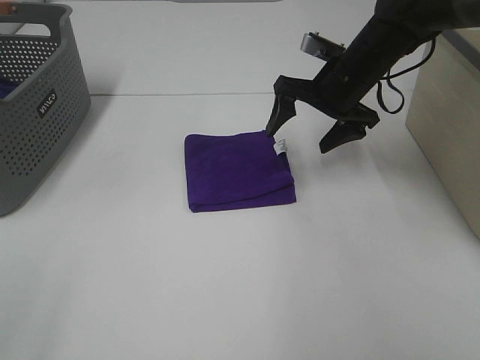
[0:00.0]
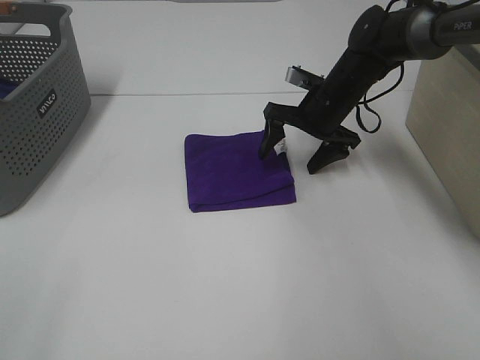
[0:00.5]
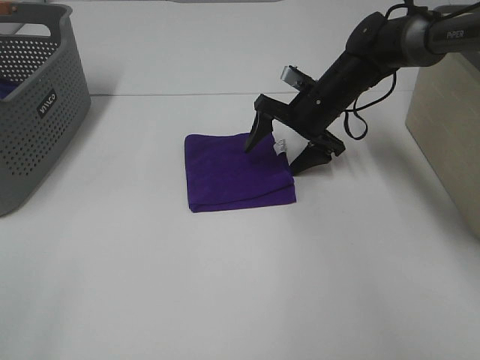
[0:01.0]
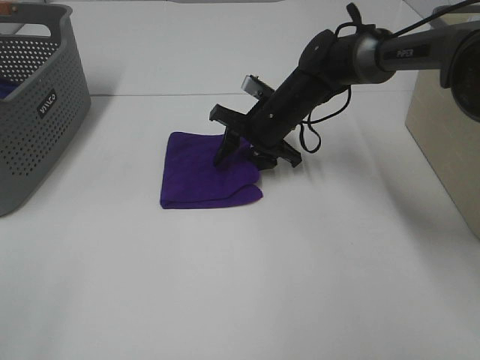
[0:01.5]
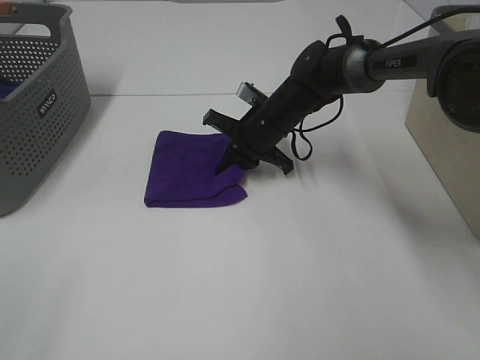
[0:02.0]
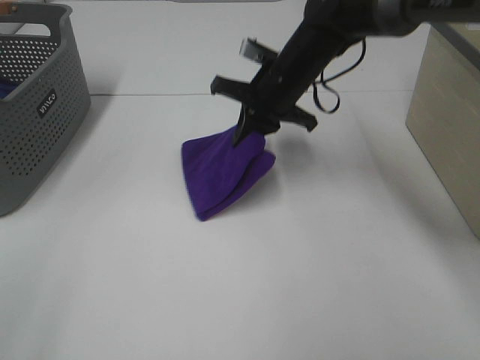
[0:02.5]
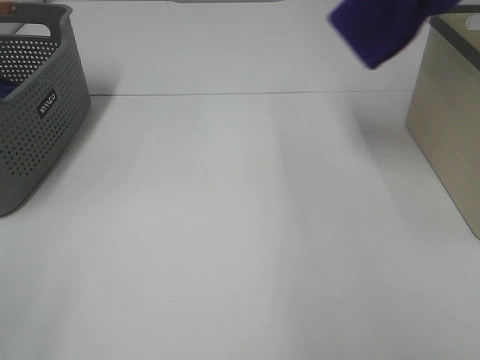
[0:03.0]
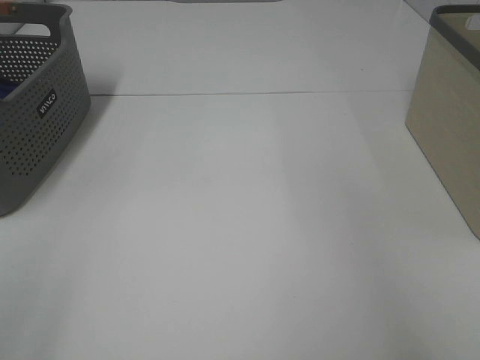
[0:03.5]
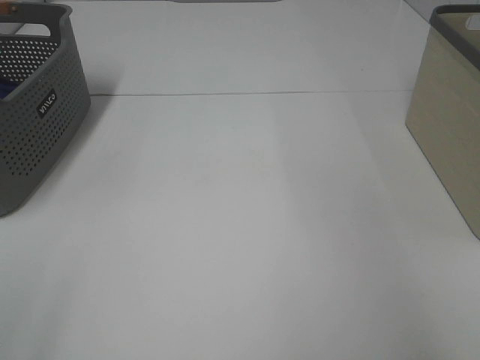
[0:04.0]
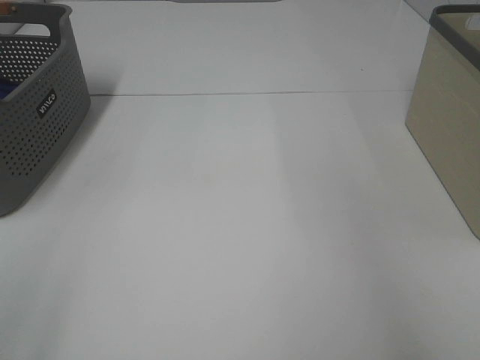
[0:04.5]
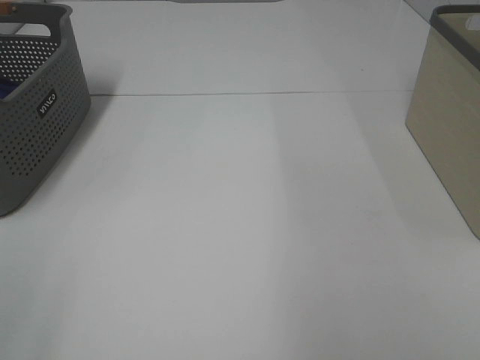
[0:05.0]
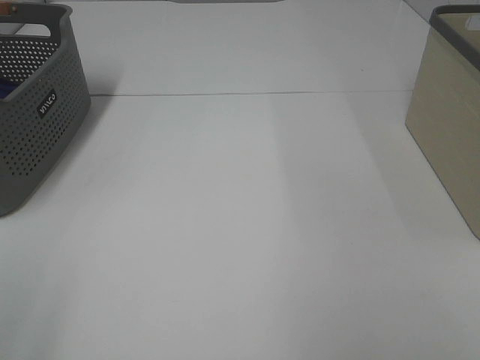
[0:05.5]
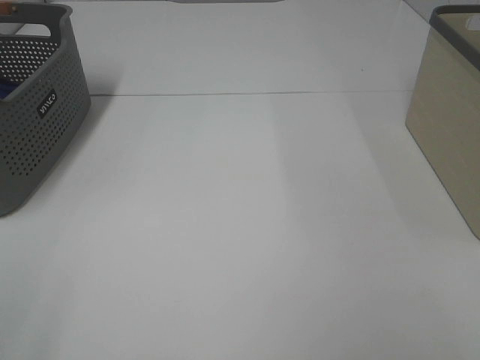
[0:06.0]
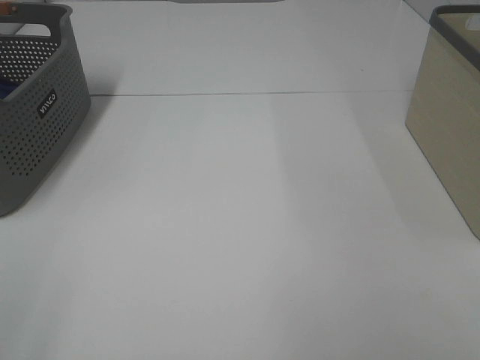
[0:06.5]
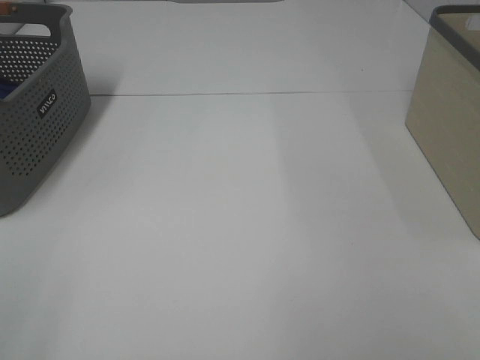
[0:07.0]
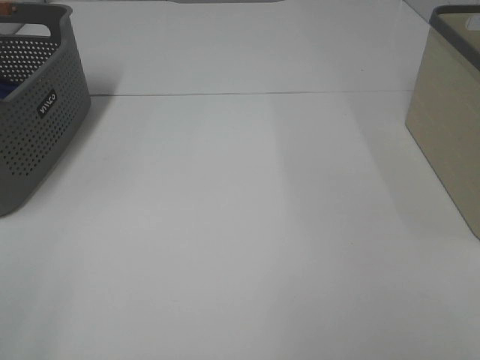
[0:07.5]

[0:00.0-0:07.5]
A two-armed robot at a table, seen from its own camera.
Step, 0:02.0 to 0:04.0: Right hand: place the purple towel in right basket.
0:00.0 to 0:02.0: The right gripper is displaced downward and to the left by approximately 15 cm, and closes its fingers.
0:02.0 to 0:04.0: The right gripper shifts approximately 50 cm to the right and upward, and opens its fingers.

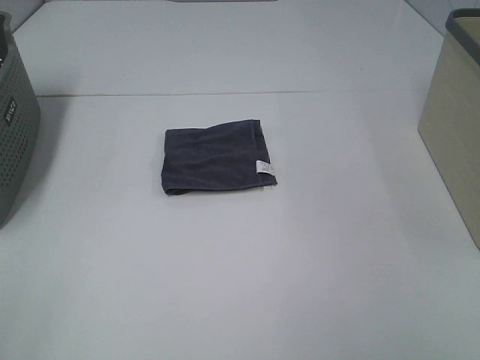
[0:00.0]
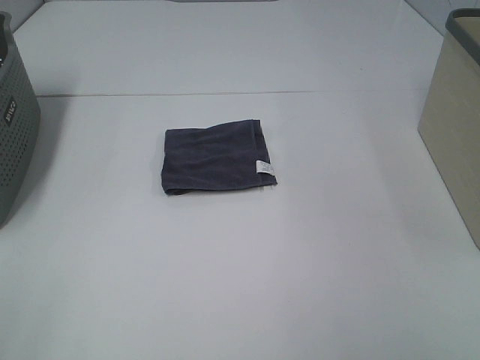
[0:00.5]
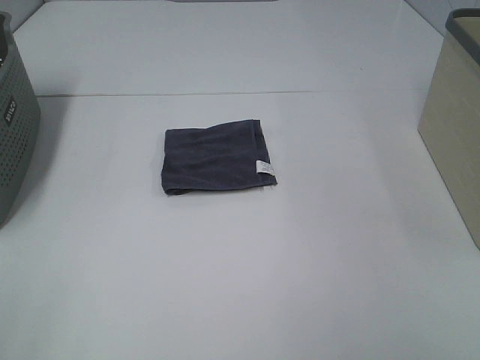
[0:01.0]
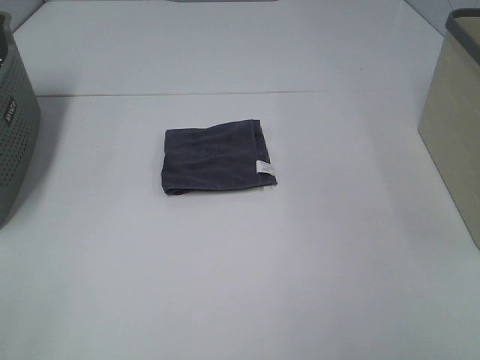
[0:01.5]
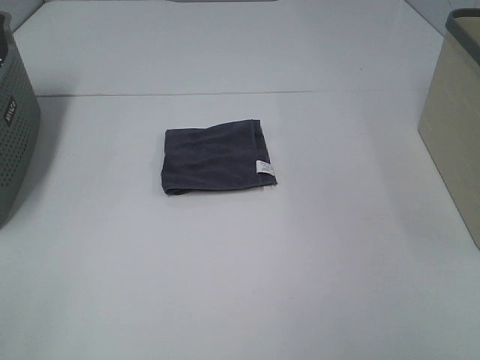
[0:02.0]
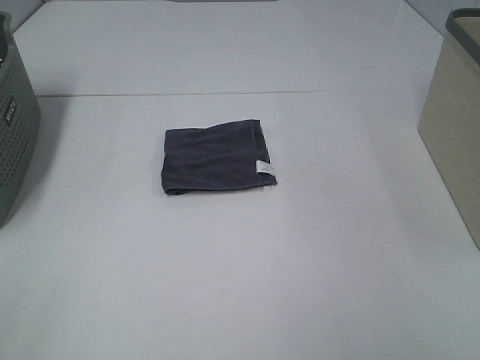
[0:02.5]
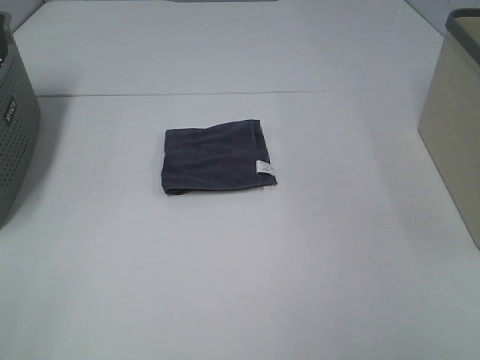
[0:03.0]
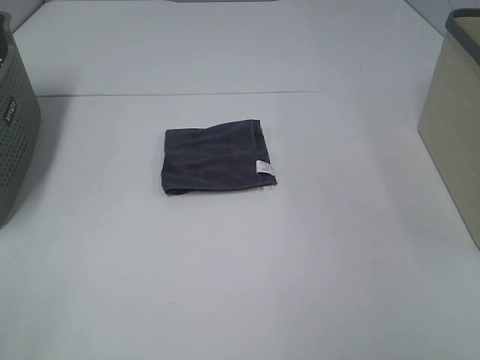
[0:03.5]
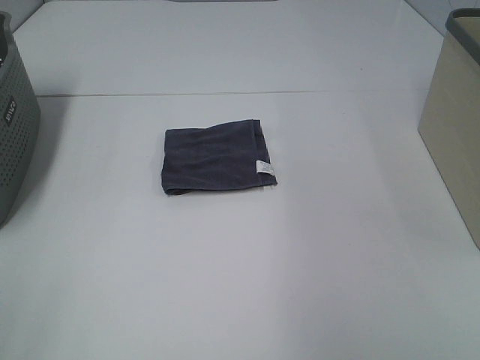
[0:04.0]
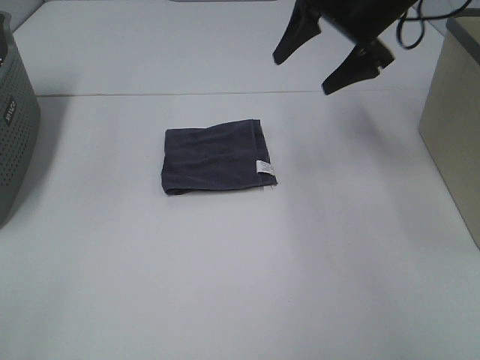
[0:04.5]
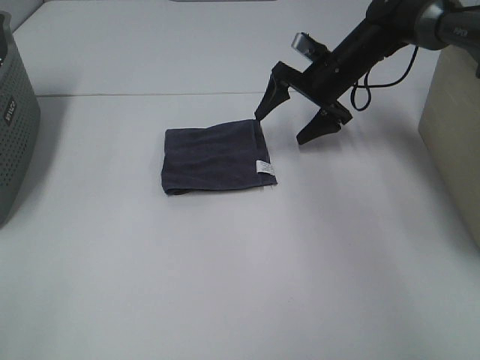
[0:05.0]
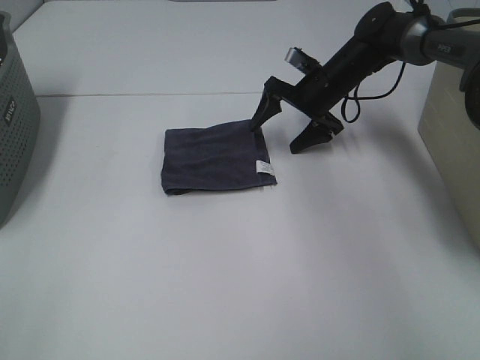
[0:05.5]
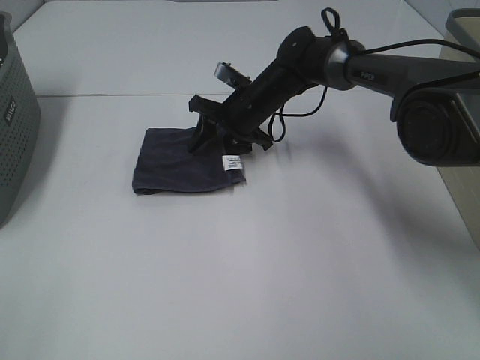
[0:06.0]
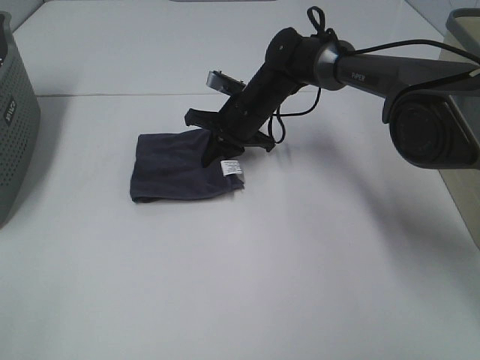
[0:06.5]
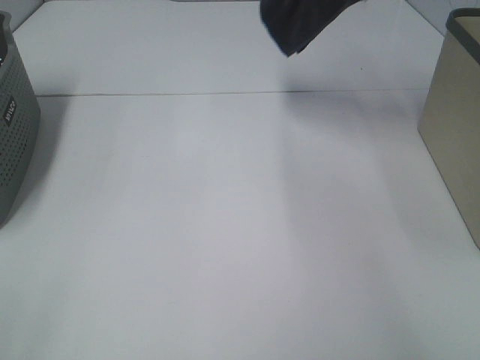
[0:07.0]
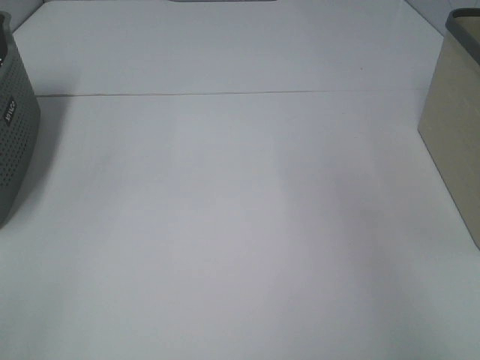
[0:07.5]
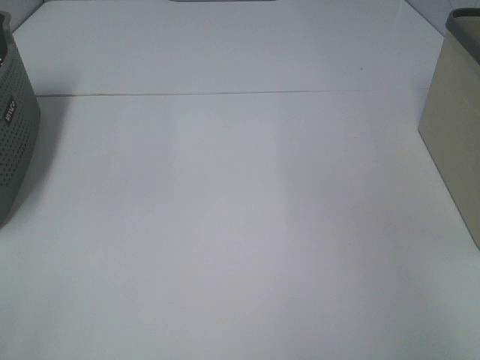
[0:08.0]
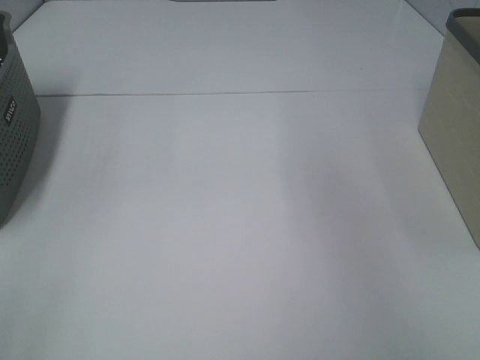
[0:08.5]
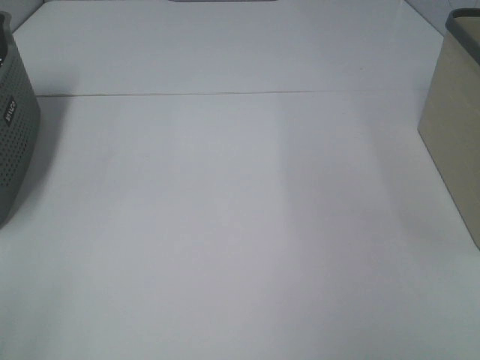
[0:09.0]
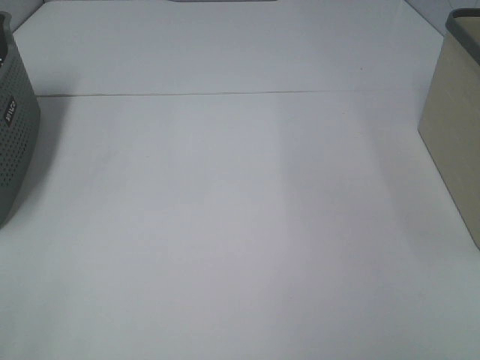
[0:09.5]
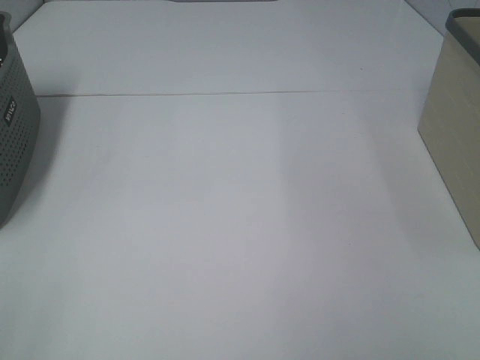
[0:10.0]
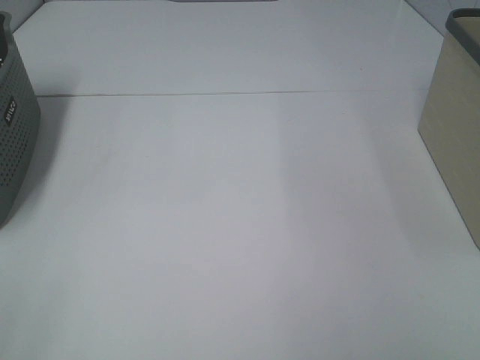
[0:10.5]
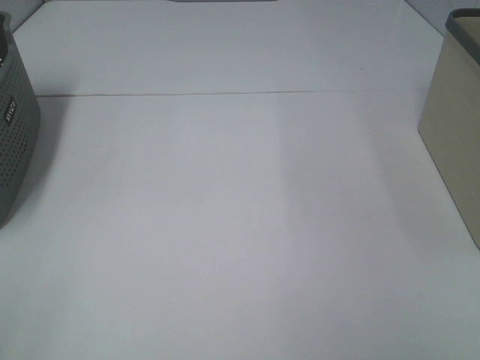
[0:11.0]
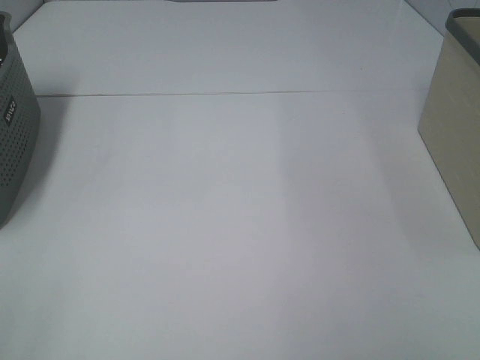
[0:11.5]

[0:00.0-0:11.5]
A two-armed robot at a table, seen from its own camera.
Step, 0:00.0 to 0:06.0: Right hand: grab the folded grey towel.
Step, 0:06.5 to 0:08.0: Right hand: place the grey towel in right basket.
0:00.0 to 0:02.0: Both grippers stay about where they are.
0:04.0 to 0:06.0: The right gripper moves downward, to the left and forward, about 50 cm, and closes its fingers.
0:06.0 to 0:07.5: The right gripper shifts approximately 50 cm to the right and upward, and closes.

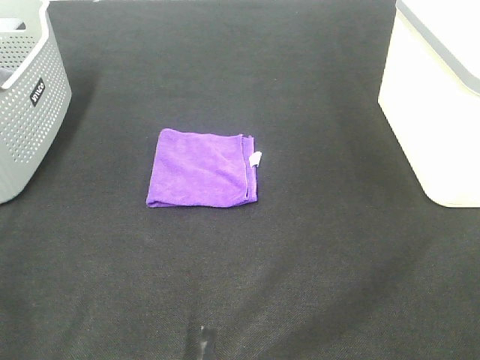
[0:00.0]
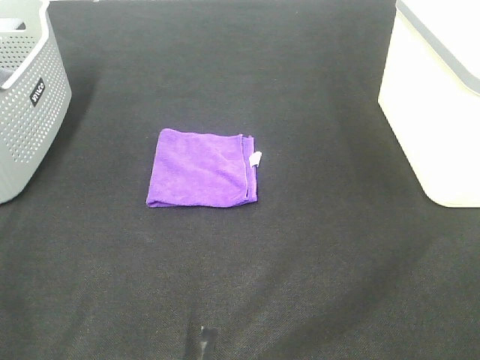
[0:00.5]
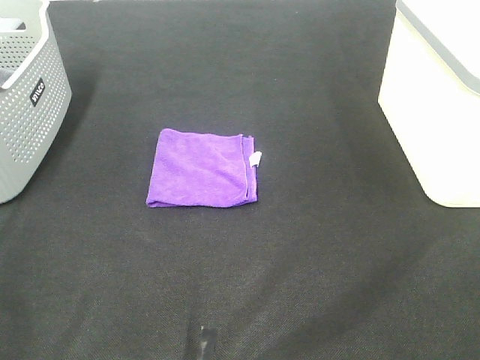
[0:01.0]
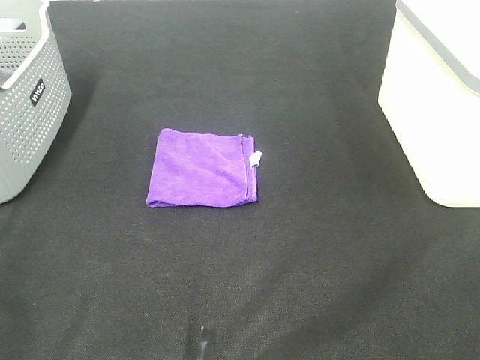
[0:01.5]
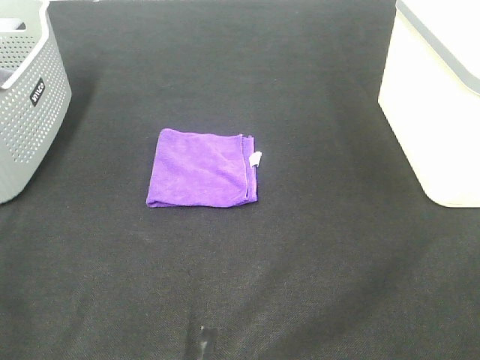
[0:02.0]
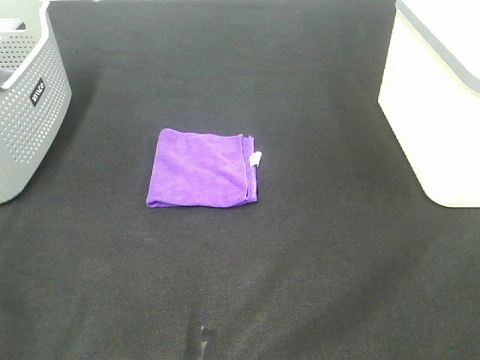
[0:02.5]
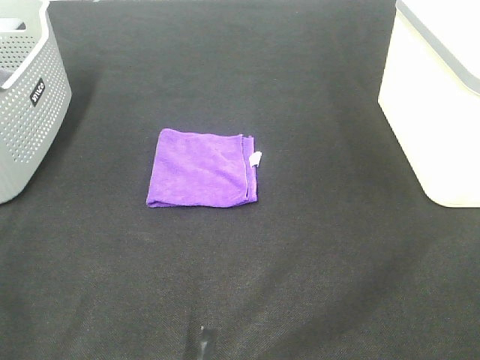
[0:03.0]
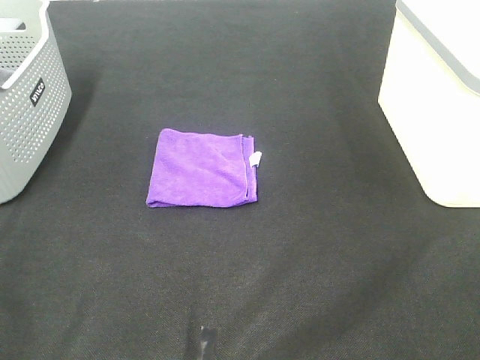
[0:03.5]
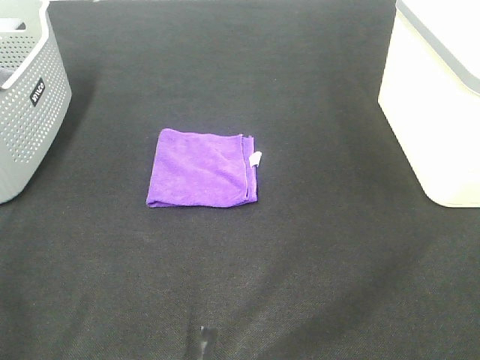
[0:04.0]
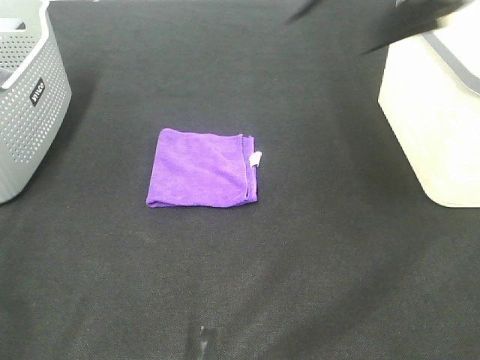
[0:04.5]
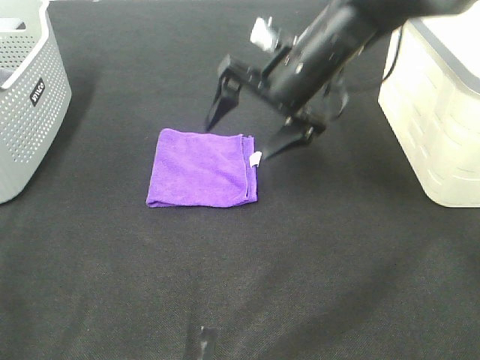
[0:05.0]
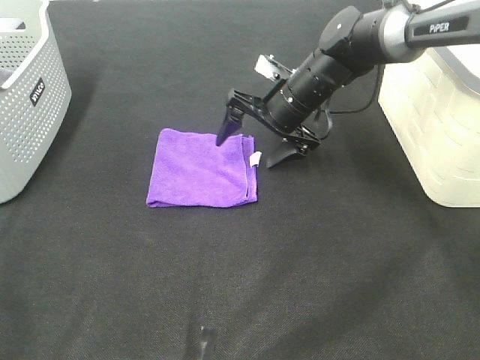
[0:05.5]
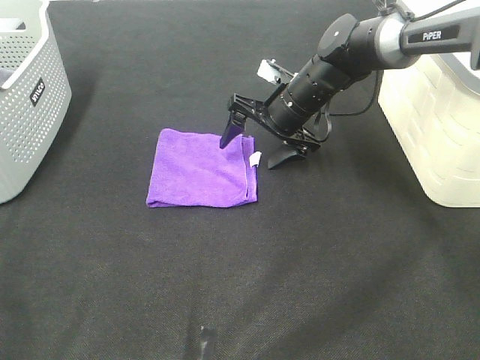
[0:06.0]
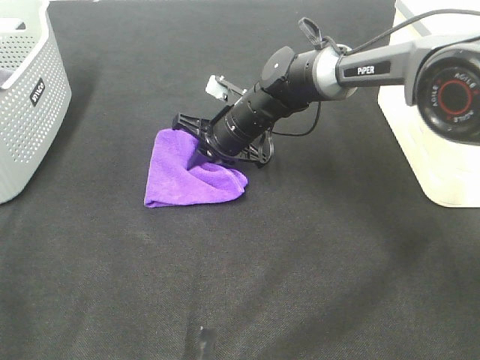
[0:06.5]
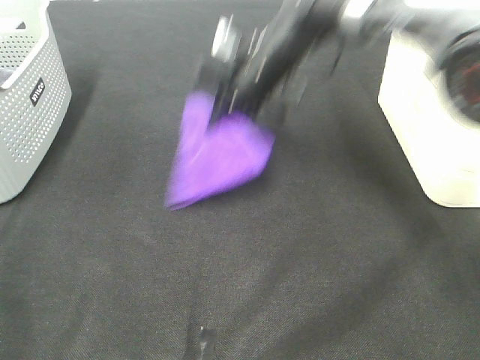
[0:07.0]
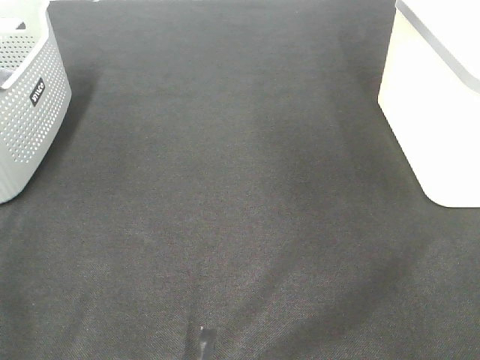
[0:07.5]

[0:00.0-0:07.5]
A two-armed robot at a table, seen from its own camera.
Step, 0:00.0 to 0:06.5: Right hand: grab the folded purple towel.
0:00.0 to 0:02.0: Neither gripper changes place.
0:04.0 to 0:05.5: The right gripper is displaced forward, downward and to the left by some 50 cm.
0:05.5 to 0:07.5: The right gripper goes roughly 40 cm upward and to the right, and closes its fingers.
